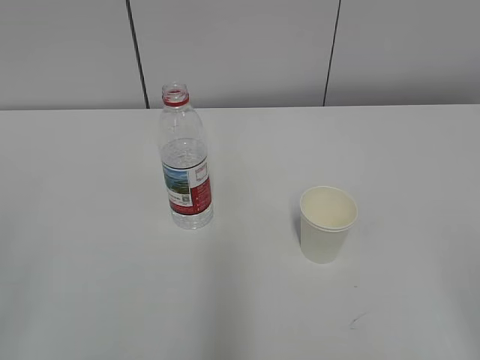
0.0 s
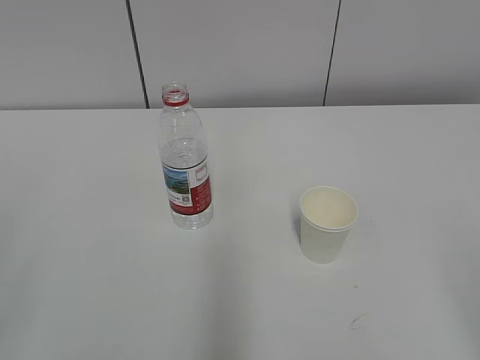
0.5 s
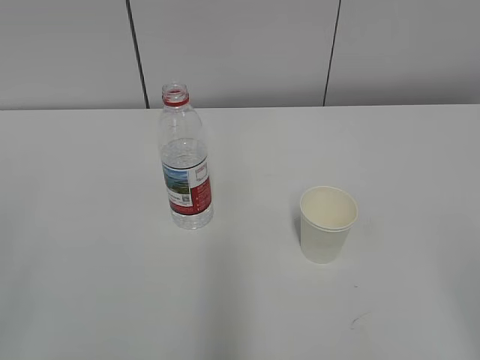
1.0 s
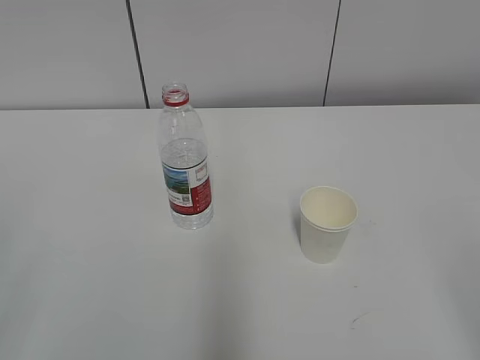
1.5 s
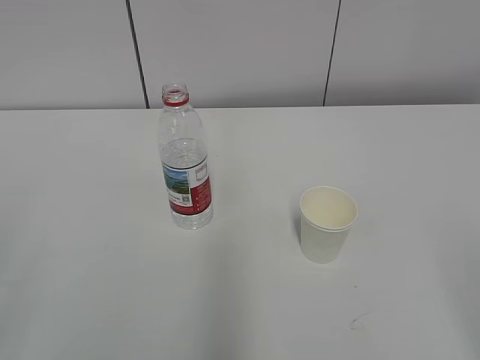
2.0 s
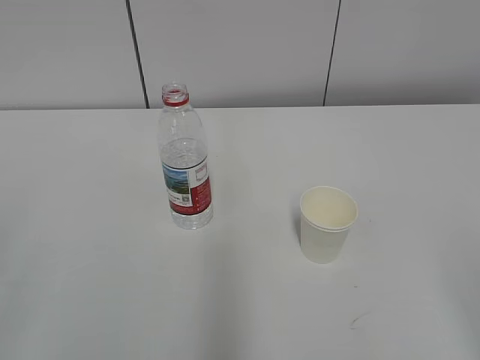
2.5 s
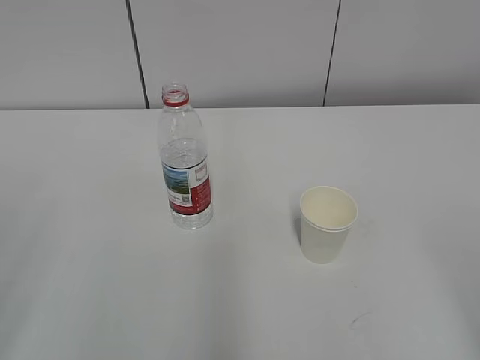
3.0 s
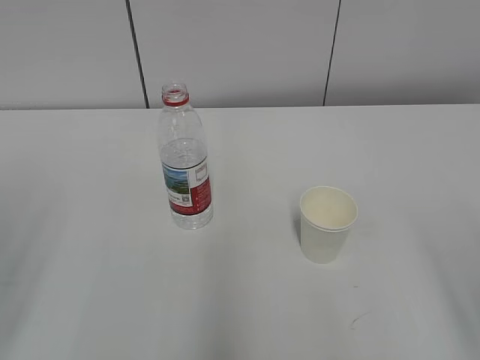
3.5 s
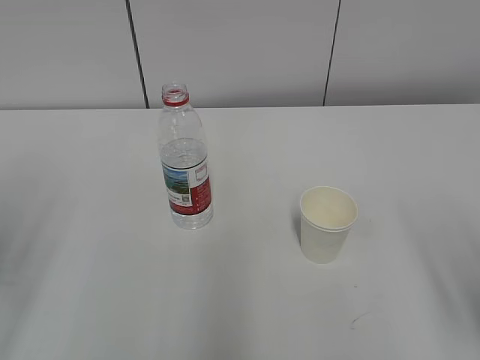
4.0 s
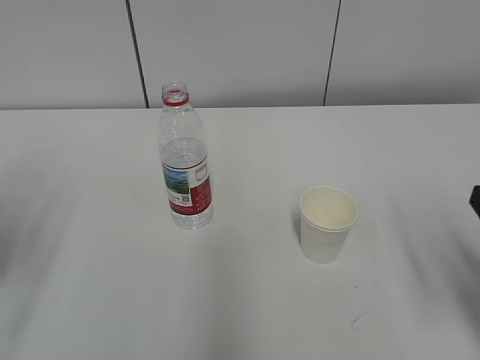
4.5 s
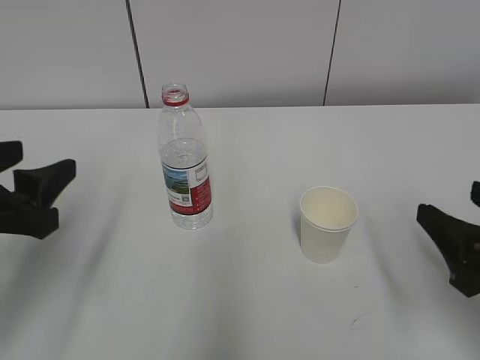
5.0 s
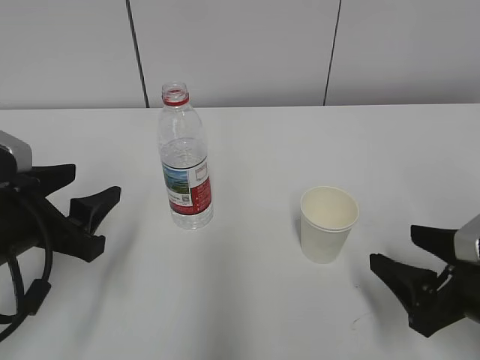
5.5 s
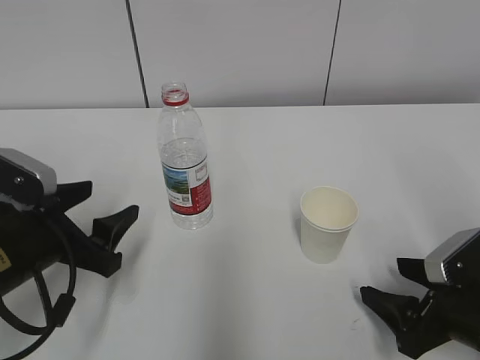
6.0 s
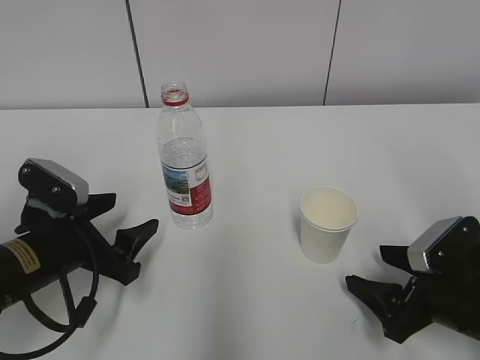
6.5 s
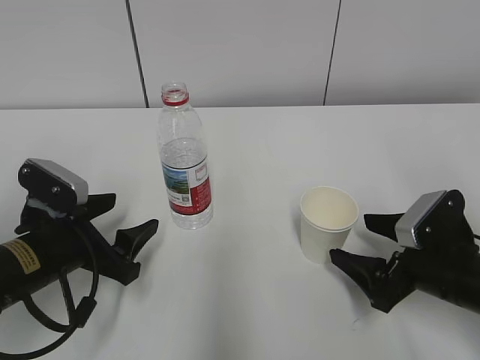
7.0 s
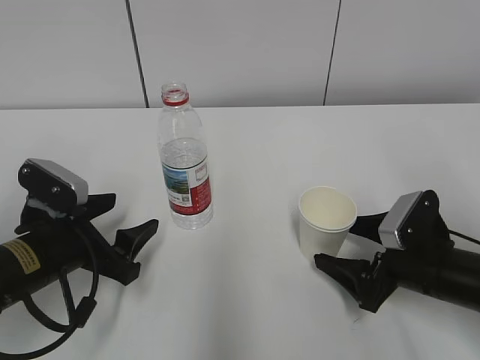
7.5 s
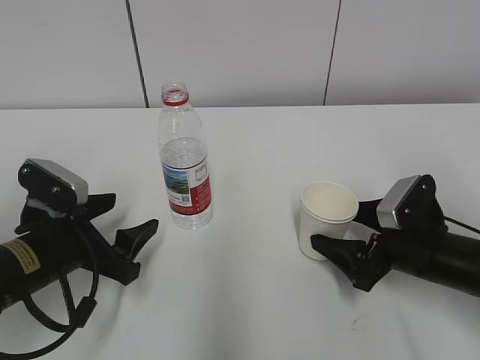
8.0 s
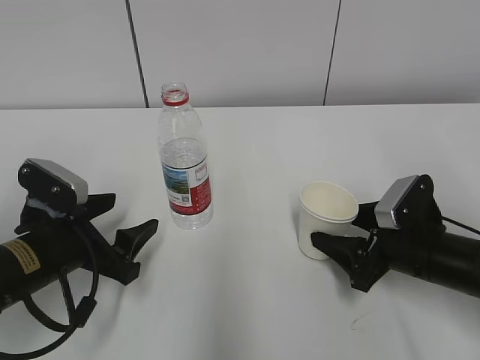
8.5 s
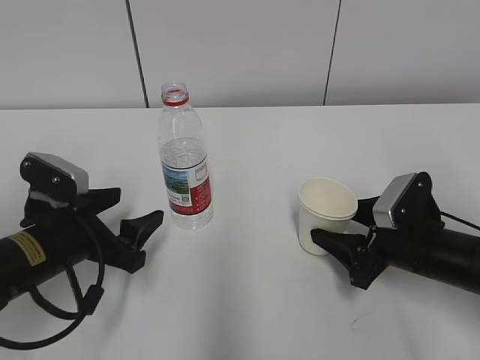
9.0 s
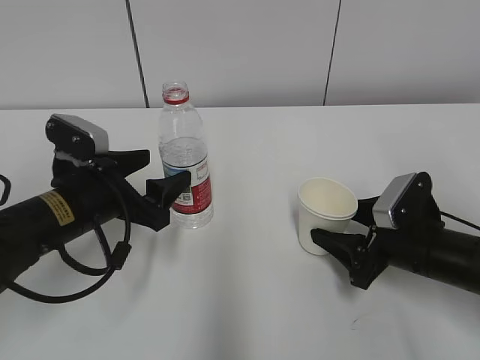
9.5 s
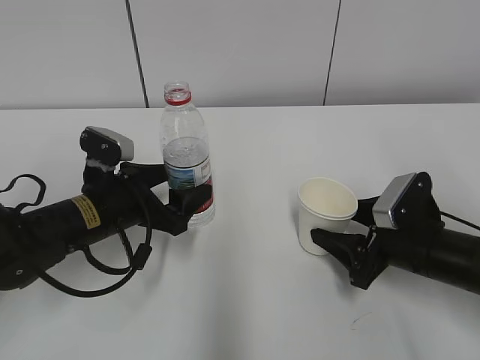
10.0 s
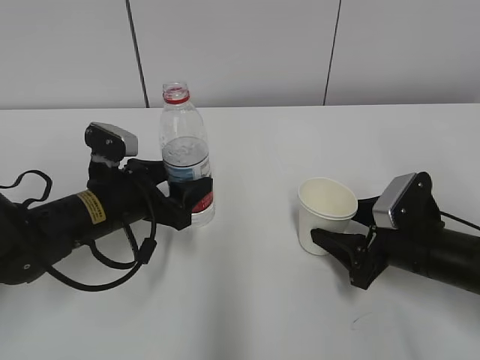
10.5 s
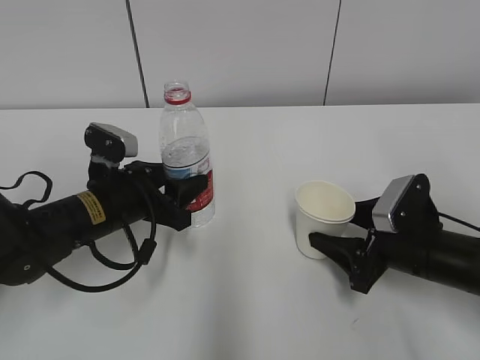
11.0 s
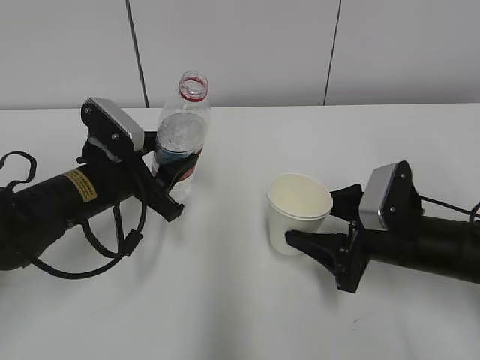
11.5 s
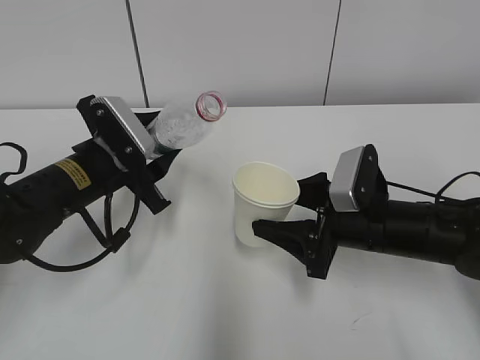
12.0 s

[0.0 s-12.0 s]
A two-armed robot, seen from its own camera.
Step, 0.0 to 7.0 s: Grab the paper cup with the right hand.
Step, 9.0 to 11.5 s: Lift the paper cup with the right hand.
4.0 to 6.0 s: The left gripper moves downward, to the right and forward, roughly 20 cm, while the right gripper travels downward and forward by about 15 cm.
6.0 to 8.0 s: The right gripper goes approximately 10 cm forward, and opens.
8.0 to 10.0 s: The left gripper goes some 5 cm forward; the right gripper closes.
10.0 to 12.0 s: The left gripper closes. The right gripper goes approximately 5 cm to the left.

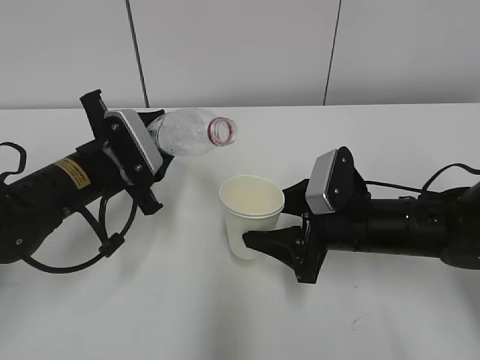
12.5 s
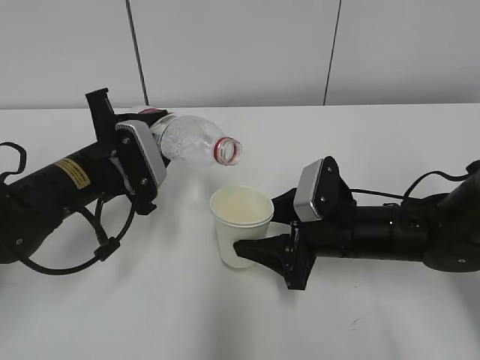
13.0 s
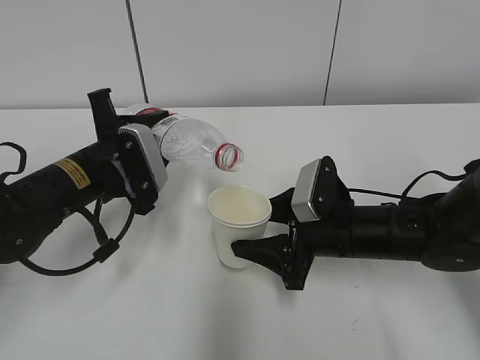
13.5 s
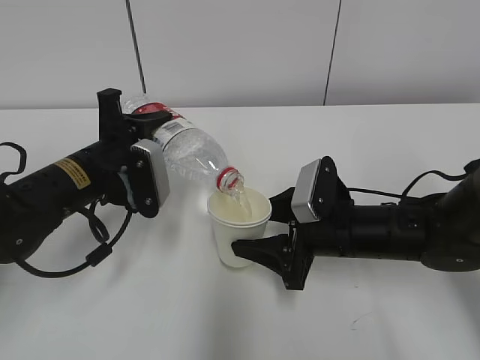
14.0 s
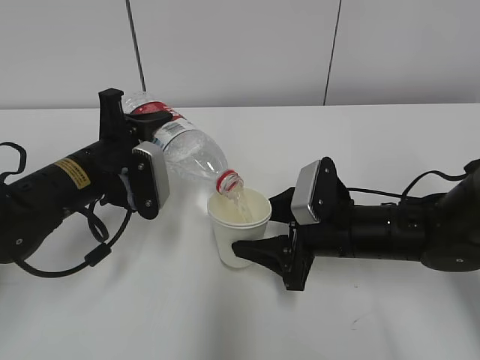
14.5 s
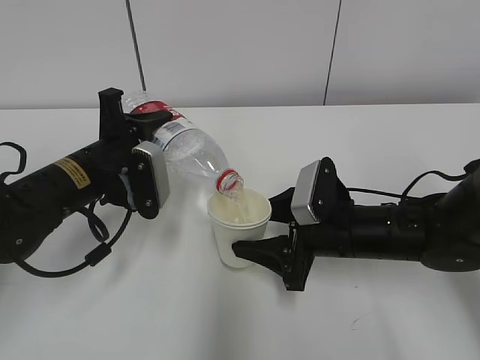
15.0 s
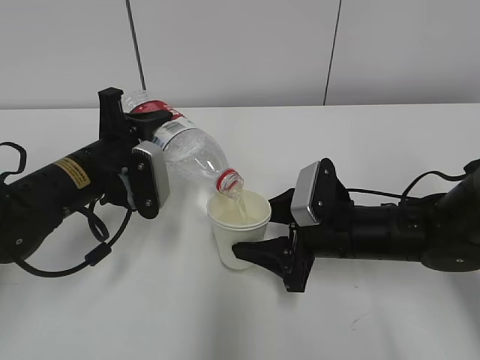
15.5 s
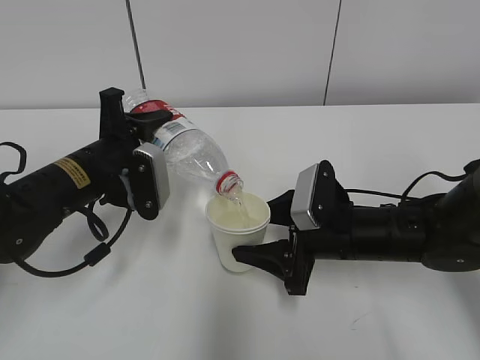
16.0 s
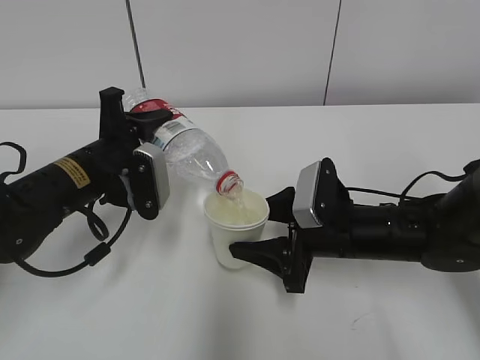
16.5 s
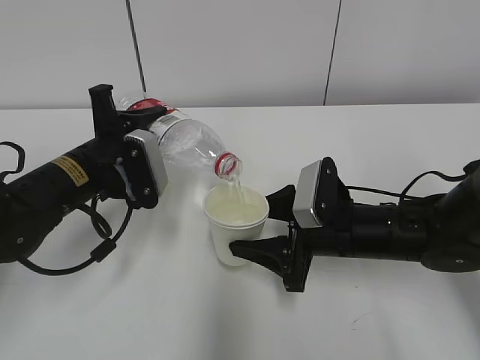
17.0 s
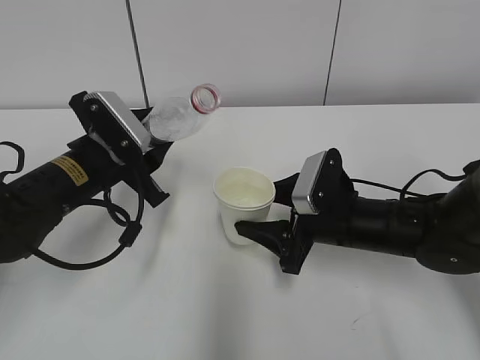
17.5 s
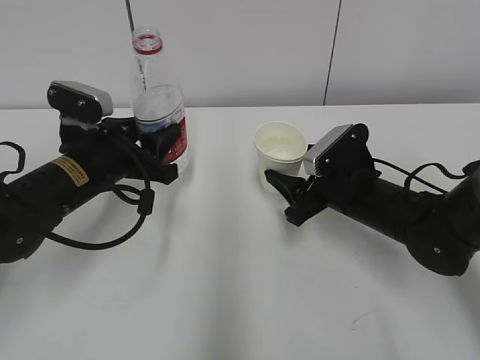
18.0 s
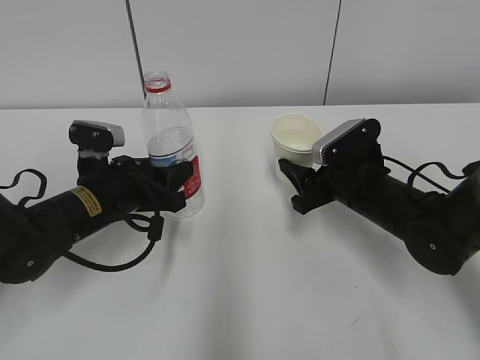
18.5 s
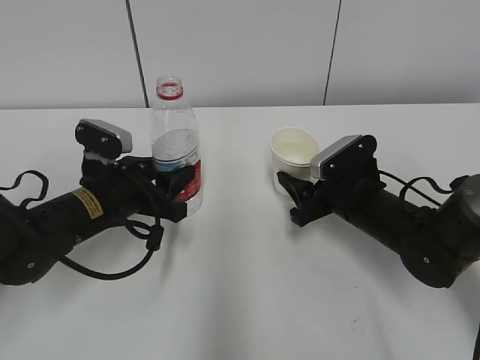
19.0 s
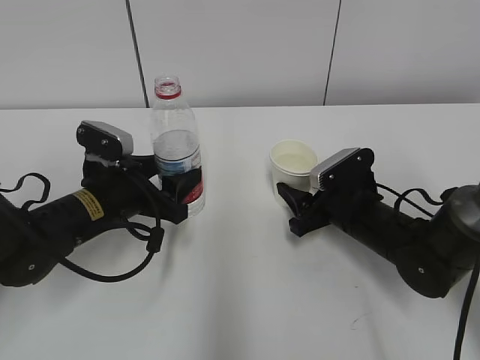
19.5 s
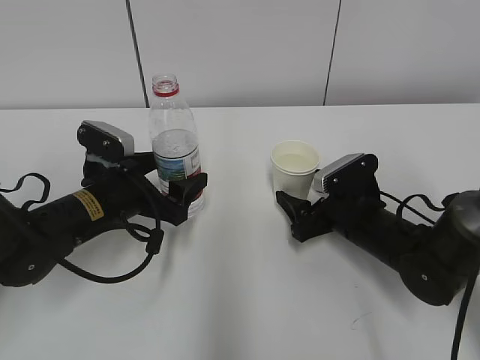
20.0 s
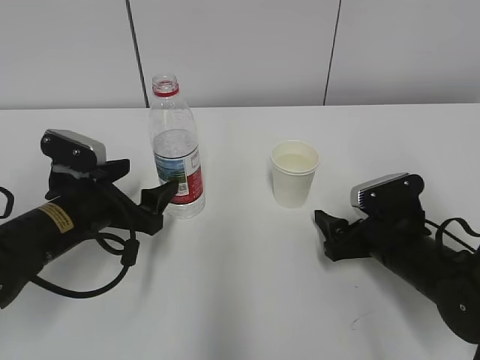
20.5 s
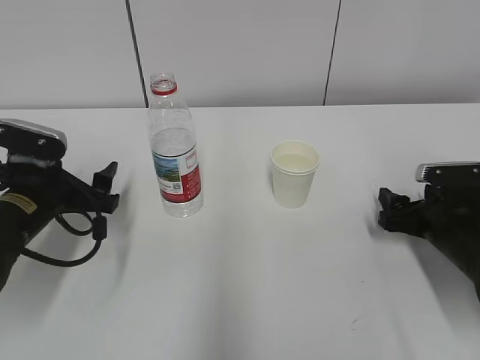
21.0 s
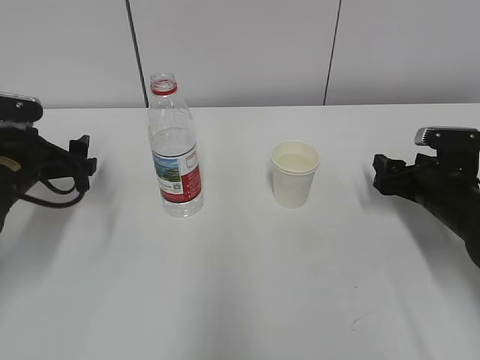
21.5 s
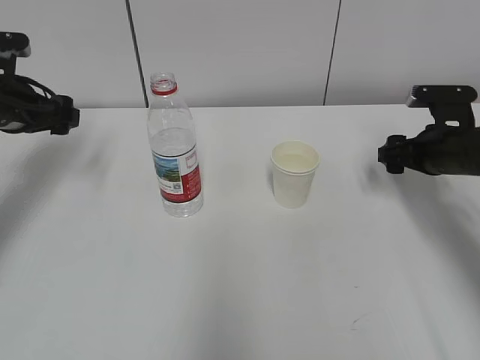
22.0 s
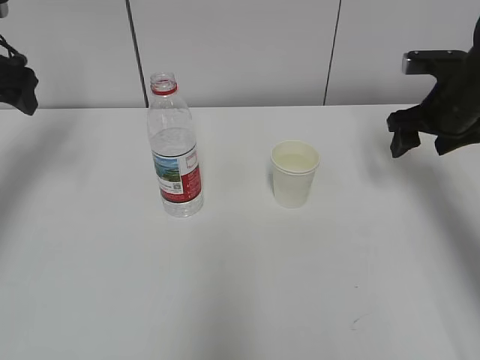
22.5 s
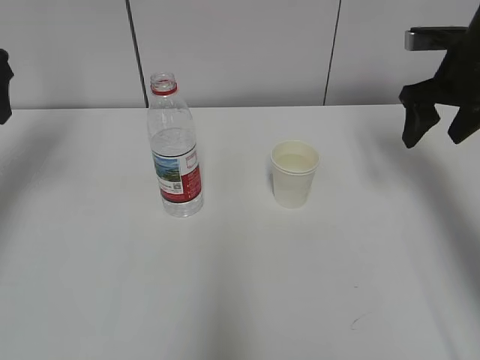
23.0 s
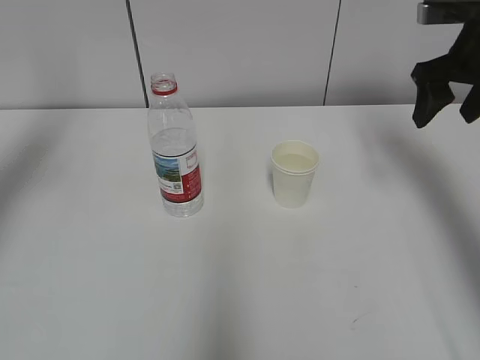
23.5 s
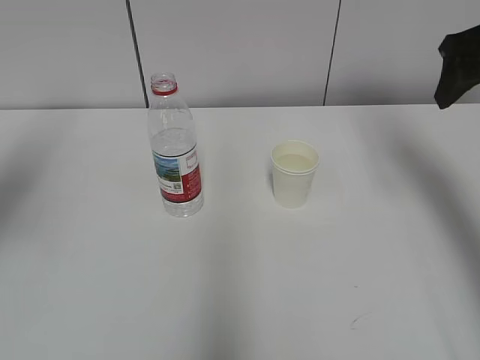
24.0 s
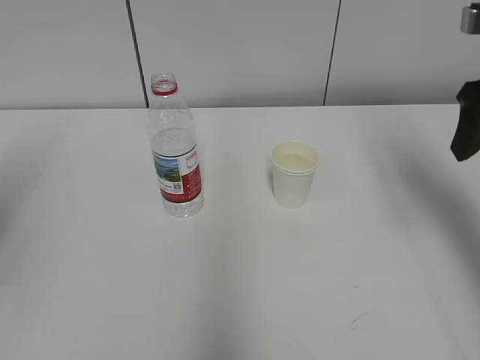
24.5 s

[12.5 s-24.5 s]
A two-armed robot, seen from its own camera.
Step, 12.5 to 14.0 s: Fill water with the right hand.
Step, 15.5 to 16.5 s: Place the paper cup with the right hand.
14.5 to 16.5 s: Both grippers stay put.
16.5 to 18.5 s: The right gripper shifts by about 5 cm.
18.5 to 20.5 s: The left gripper opens; the right gripper heads backward, covering some 5 cm, and opens its fingers.
20.5 to 22.5 s: The left gripper shifts about 25 cm upward, to the left and forward, while the right gripper heads upward, forward and to the right, covering about 20 cm.
22.5 to 24.5 s: The left gripper is displaced backward by some 25 cm. The right gripper moves upward and backward, about 15 cm.

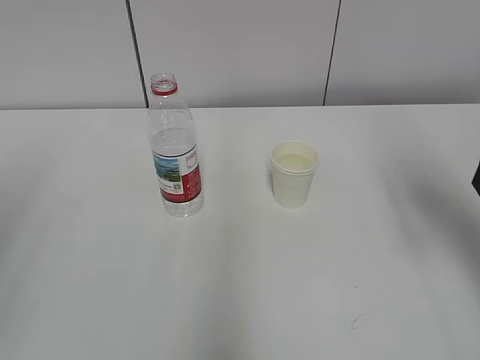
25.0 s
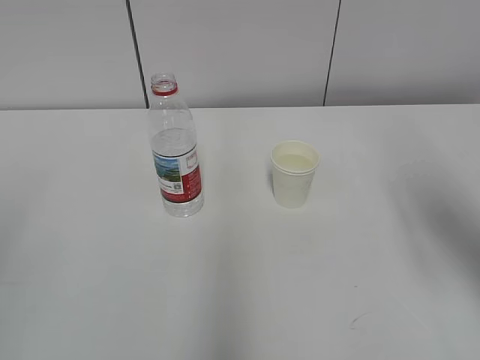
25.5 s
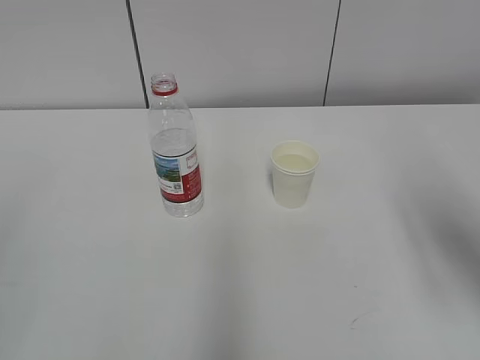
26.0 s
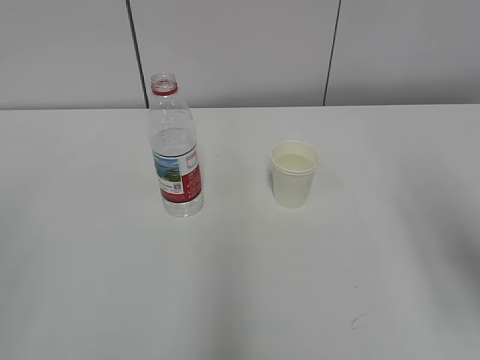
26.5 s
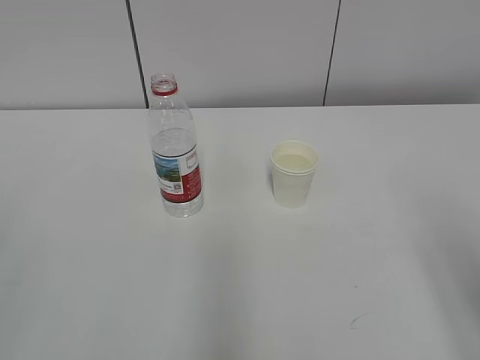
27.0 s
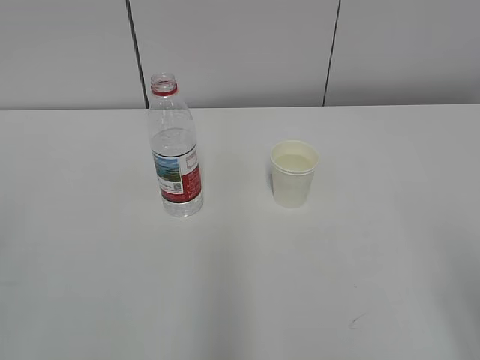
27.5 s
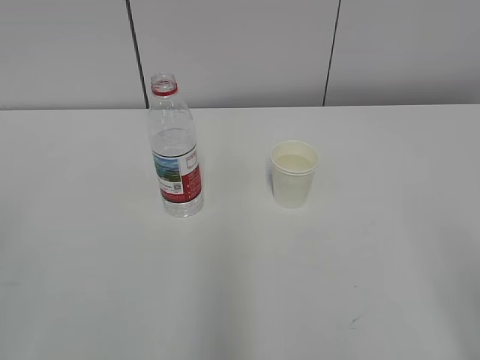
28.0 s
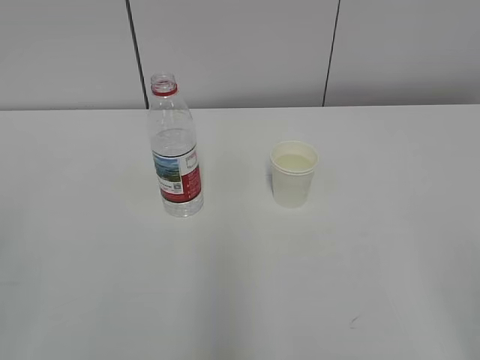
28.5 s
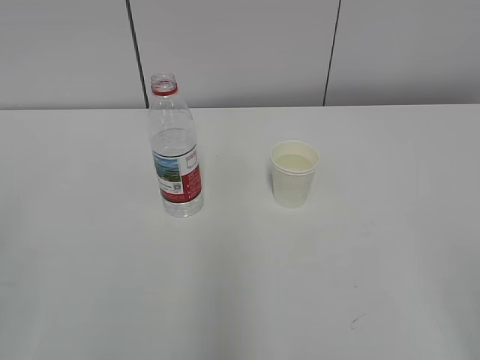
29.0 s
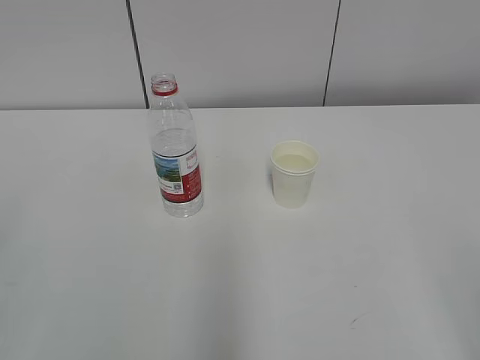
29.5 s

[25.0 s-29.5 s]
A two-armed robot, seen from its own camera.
25.0 to 27.0 s: The right gripper shifts some 15 cm backward.
